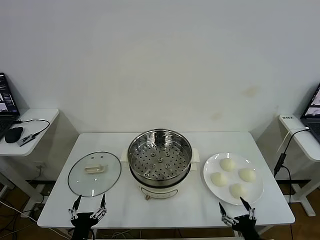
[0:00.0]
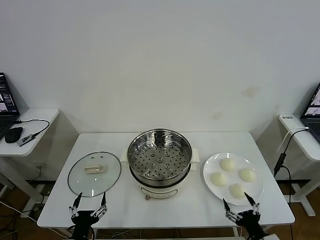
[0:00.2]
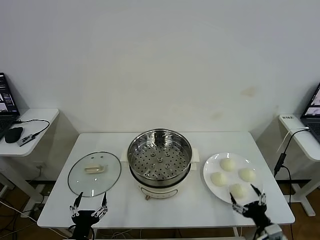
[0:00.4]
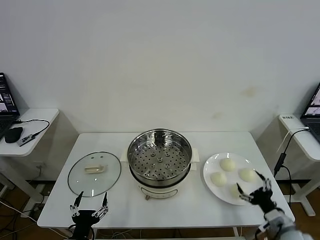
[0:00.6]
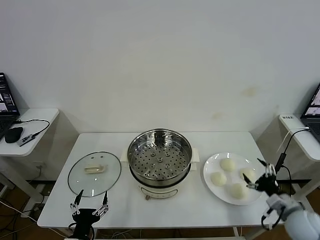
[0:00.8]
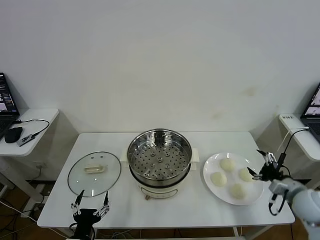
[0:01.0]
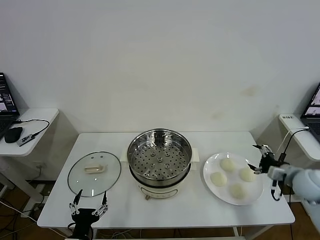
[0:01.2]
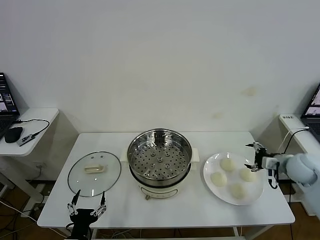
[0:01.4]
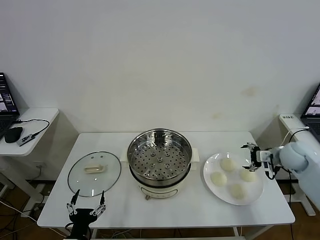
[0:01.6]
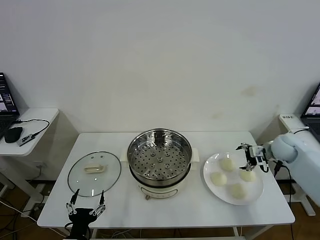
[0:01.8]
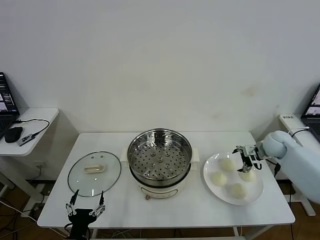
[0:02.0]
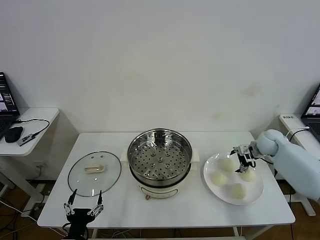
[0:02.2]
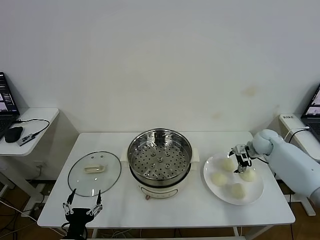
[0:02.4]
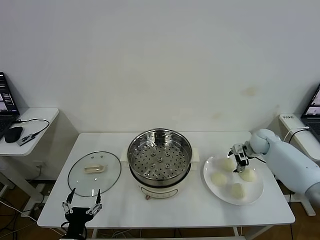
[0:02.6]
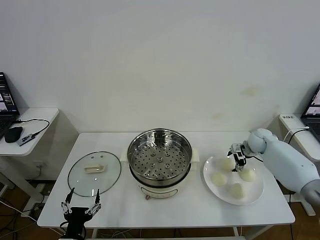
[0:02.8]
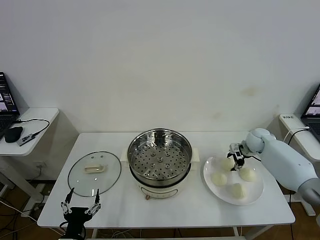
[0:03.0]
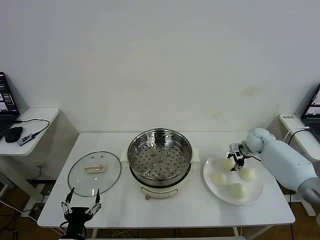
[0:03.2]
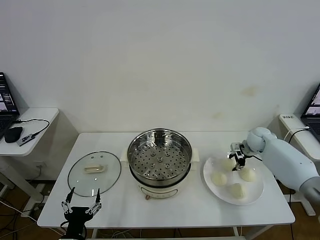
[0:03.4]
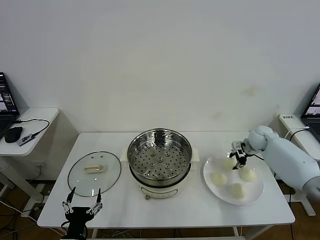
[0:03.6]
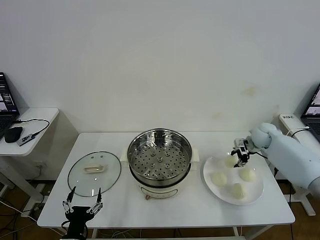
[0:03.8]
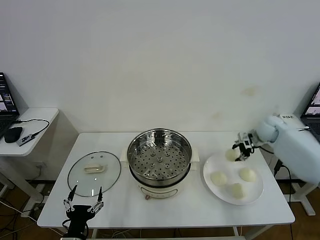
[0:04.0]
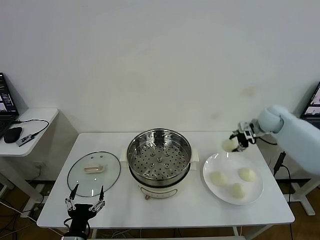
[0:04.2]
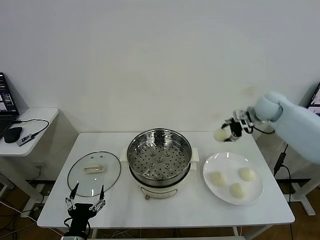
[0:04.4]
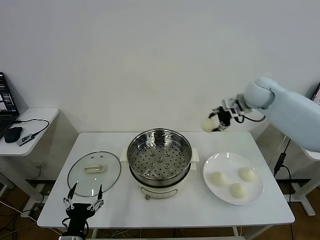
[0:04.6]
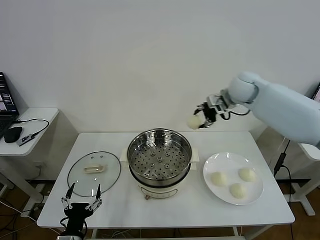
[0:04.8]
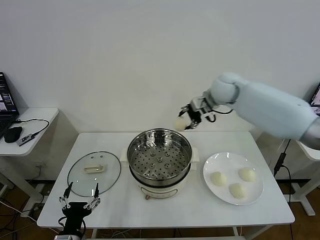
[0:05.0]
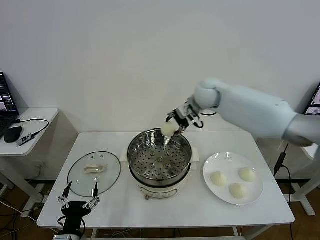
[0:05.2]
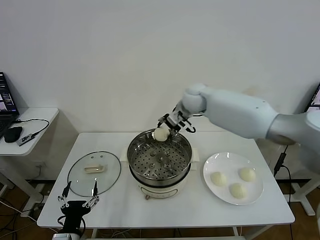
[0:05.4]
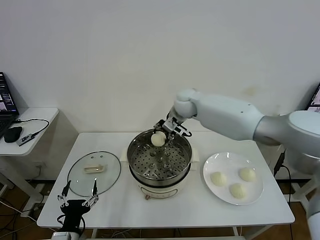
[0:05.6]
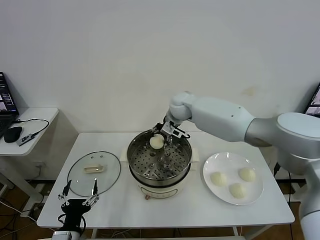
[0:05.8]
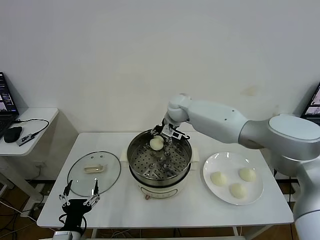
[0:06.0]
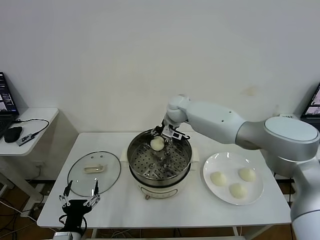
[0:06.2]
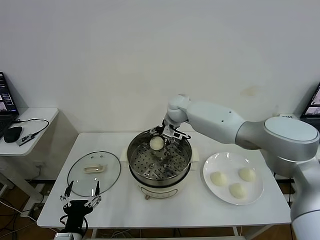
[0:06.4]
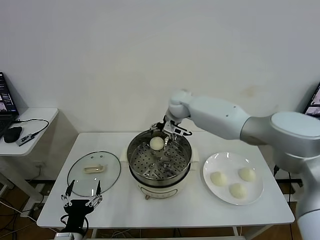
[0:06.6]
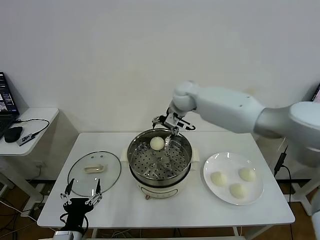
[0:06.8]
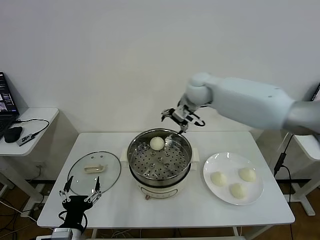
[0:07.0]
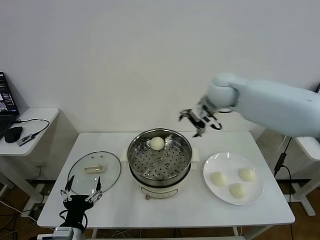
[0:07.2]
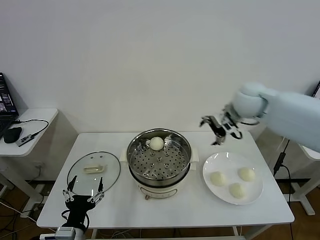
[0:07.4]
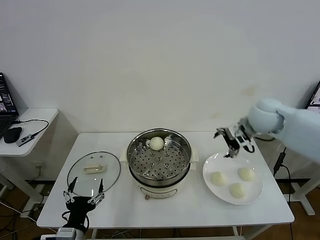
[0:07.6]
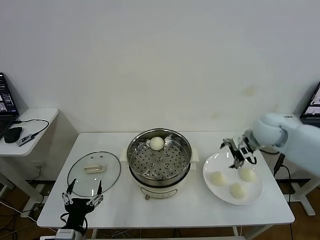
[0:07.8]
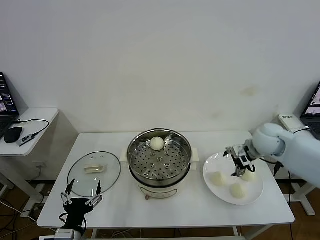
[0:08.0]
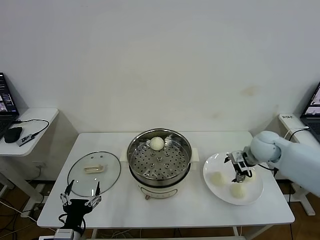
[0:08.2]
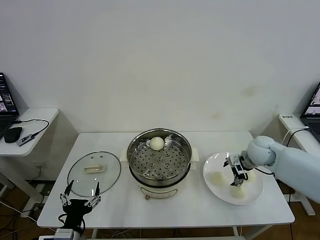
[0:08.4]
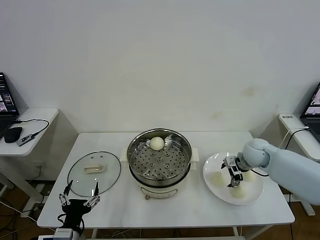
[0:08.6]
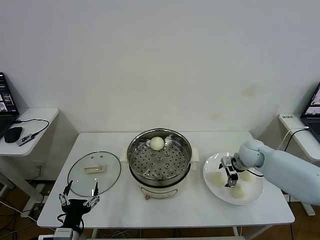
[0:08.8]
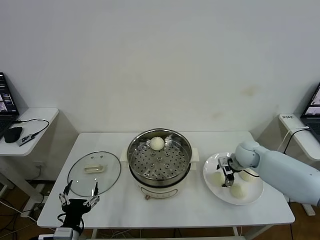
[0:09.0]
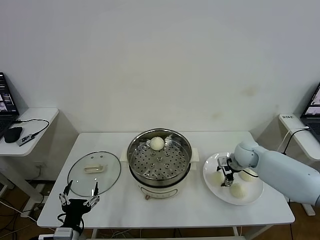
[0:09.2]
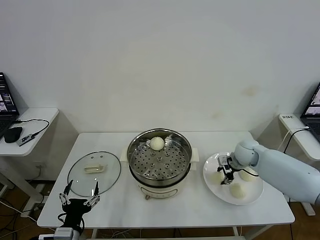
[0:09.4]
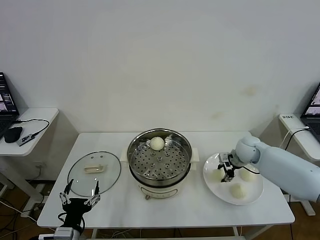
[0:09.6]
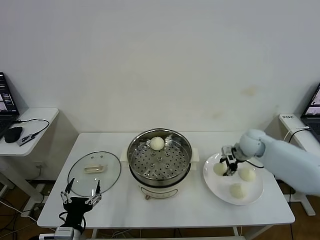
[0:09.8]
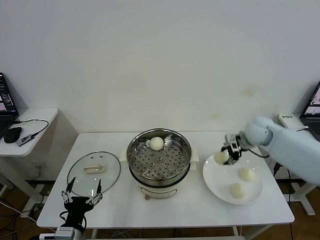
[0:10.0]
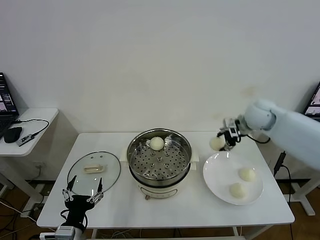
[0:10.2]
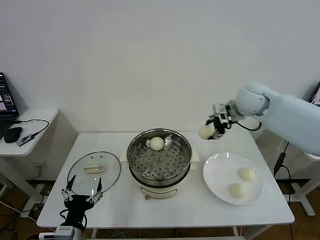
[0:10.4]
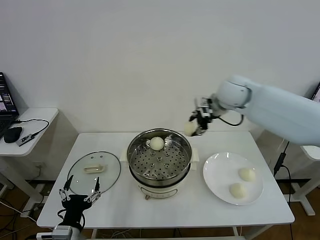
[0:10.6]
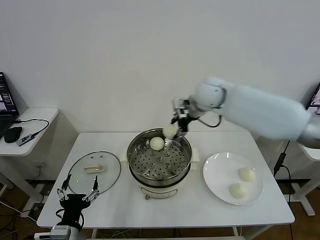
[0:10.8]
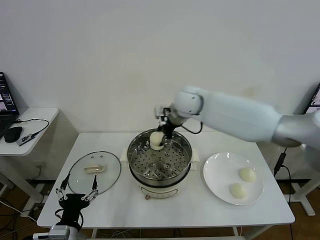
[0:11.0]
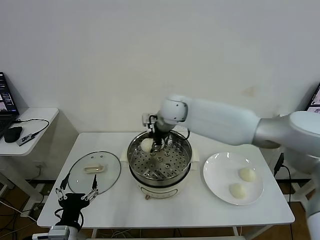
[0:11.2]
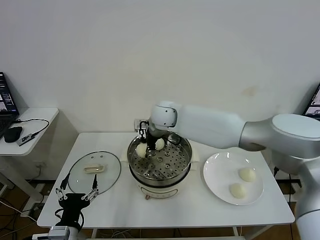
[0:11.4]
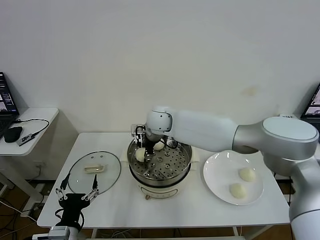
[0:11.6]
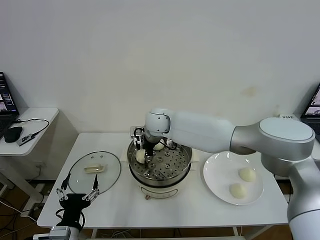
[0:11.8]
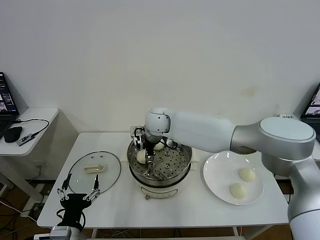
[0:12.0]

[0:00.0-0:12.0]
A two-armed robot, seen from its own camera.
Task of the whole recording: take steamed baozi put them in steamer then cover it.
Step, 0:00.0 to 0:03.0: Grasp the baozi in the plate with right gripper.
Step, 0:03.2 to 0:06.4: Place the baozi on the steamer with right gripper.
Step, 0:06.6 to 0:09.4: Grasp the baozi in the plate with right gripper.
0:01.6 to 0:03.0: The right gripper shifts approximately 15 cm forward, to the left and downward, and closes.
0:03.0 to 0:04.4: The right gripper moves upward, approximately 20 cm.
0:04.4 to 0:06.0: The right gripper moves to the left, some 30 cm.
0:06.0 to 0:07.6: The right gripper travels to the right and backward by about 25 cm, and opens.
0:07.6 to 0:09.0: The right gripper is displaced downward by some 20 cm.
0:09.0 to 0:10.4: The right gripper is displaced upward by about 20 cm, and closes its fingers.
0:10.4 to 0:12.0: The right gripper moves to the left, roughly 30 cm.

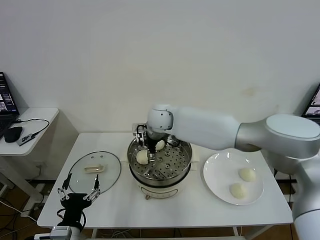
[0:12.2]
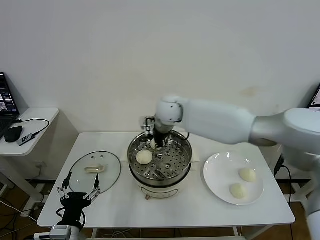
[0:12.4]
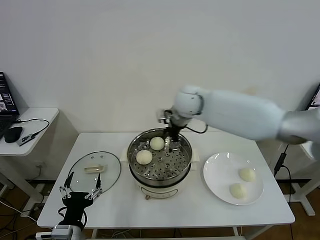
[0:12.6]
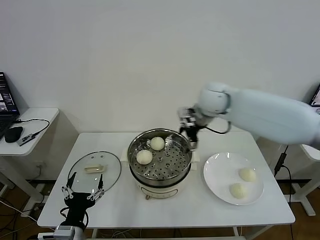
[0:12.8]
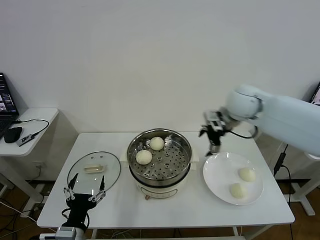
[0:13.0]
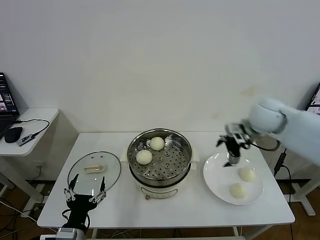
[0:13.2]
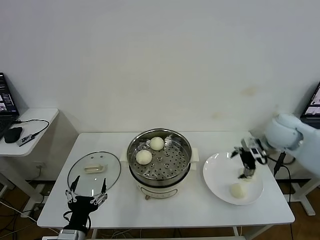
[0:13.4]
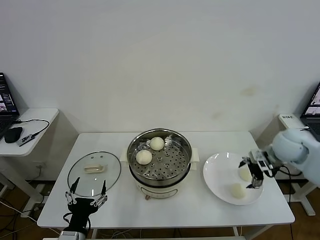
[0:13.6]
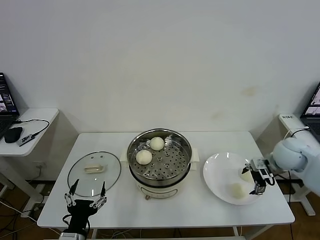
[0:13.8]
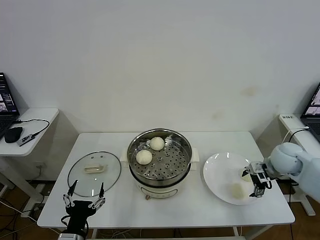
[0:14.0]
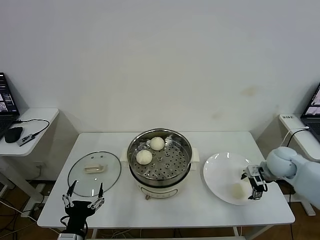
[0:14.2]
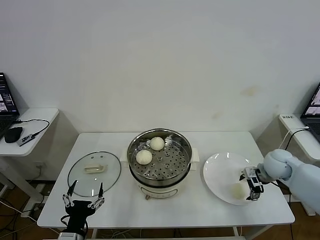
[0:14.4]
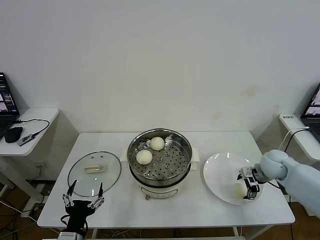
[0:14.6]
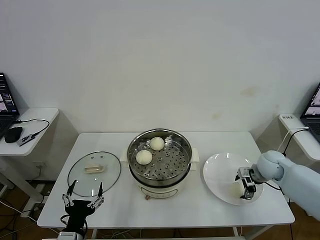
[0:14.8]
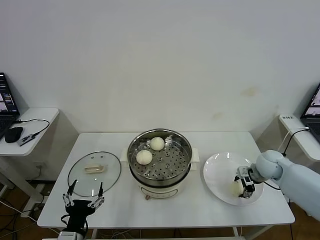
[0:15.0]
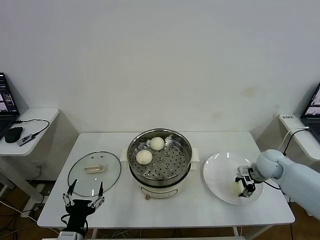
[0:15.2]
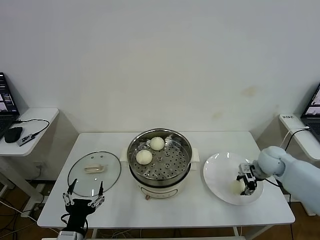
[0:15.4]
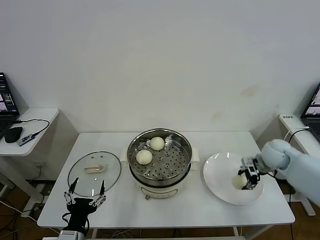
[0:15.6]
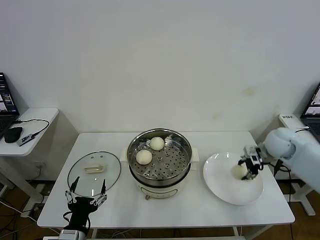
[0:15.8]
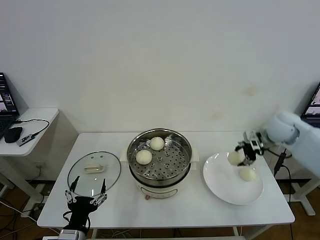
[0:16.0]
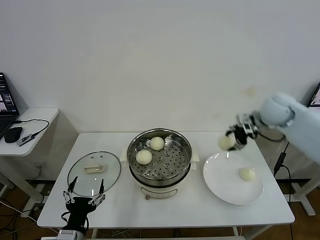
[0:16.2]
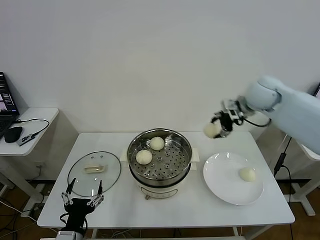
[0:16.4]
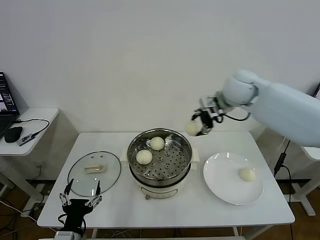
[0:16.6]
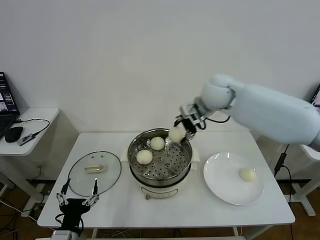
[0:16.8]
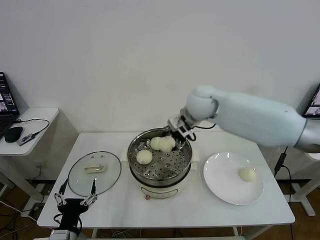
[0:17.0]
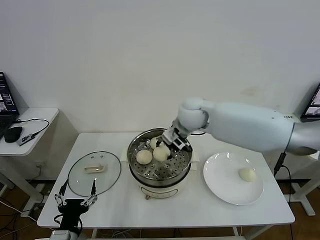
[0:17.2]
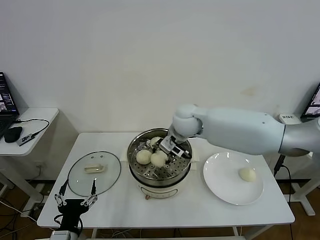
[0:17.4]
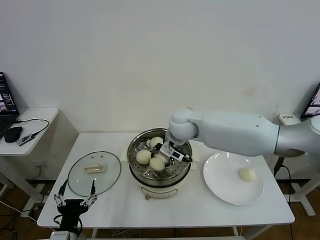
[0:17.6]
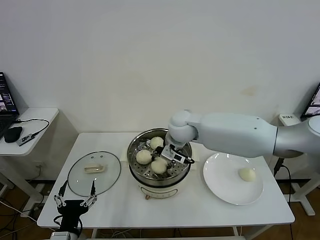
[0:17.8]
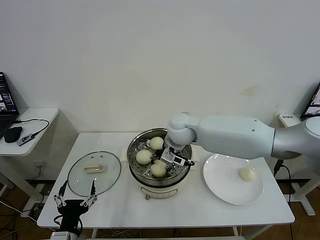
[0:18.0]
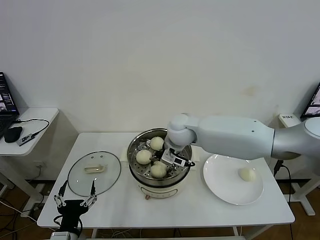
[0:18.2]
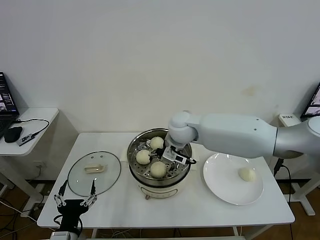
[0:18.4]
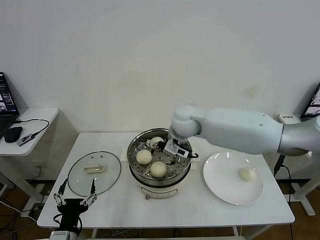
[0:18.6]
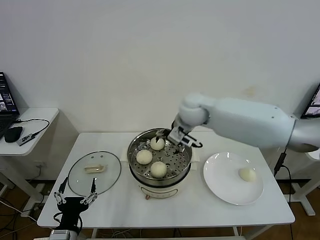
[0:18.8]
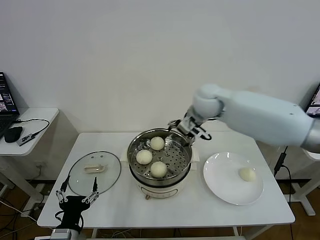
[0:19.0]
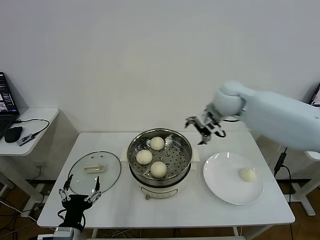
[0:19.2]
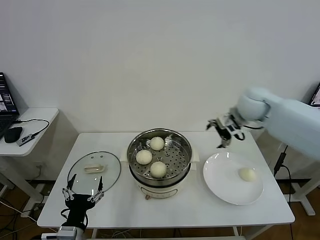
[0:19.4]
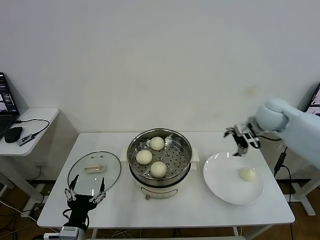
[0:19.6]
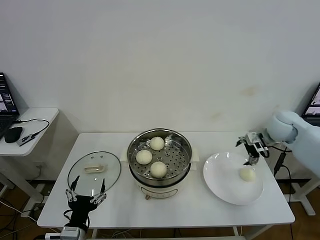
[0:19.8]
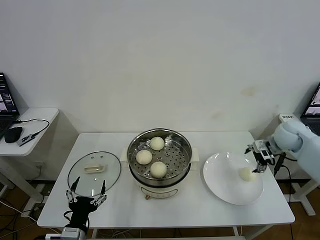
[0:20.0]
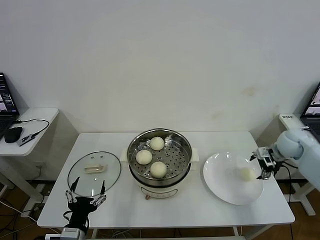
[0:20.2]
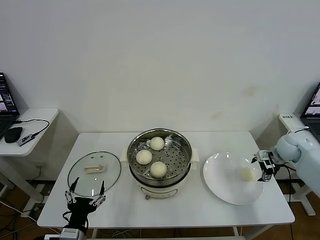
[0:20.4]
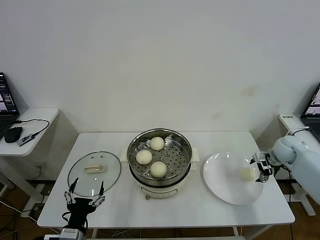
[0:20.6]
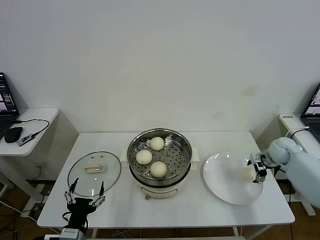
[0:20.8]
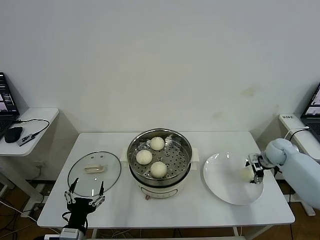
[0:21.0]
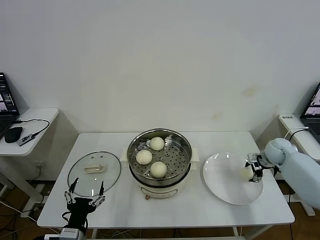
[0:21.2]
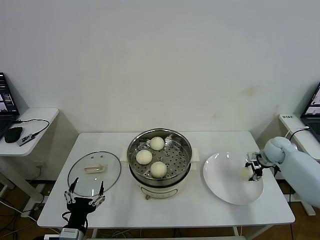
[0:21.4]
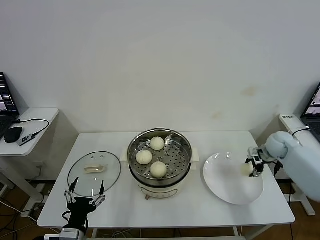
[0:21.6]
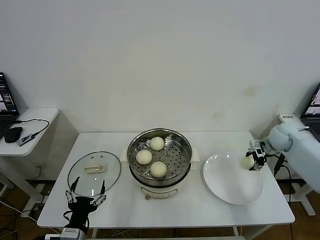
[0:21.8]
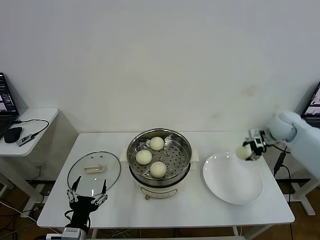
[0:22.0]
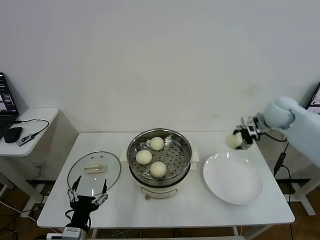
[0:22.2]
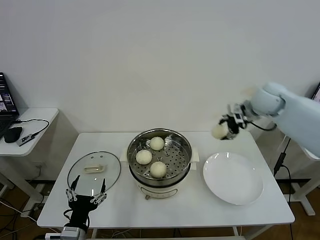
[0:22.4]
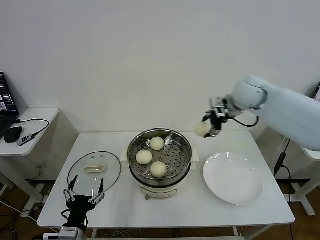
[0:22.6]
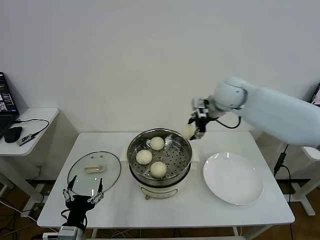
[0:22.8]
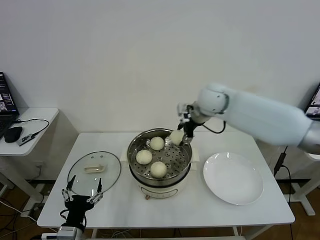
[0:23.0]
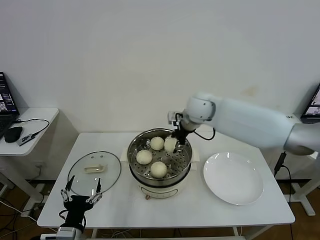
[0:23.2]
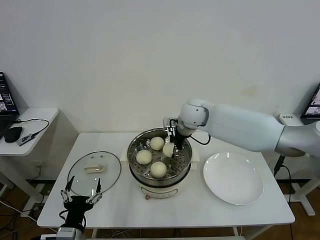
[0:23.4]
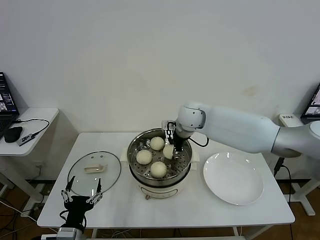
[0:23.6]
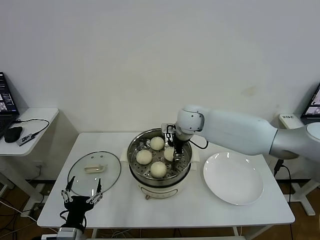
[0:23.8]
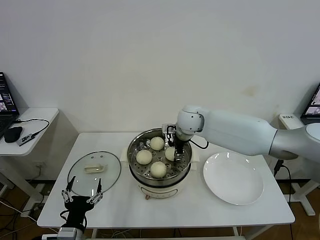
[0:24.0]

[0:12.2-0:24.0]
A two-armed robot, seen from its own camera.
Task of the whole recording: take steamed baozi put them in steamer then cover it.
Step, 0:12.4 to 0:15.2: Grasp the baozi in the plate with right gripper.
Step, 0:15.4 to 0:18.4: Place the baozi on the steamer with right gripper.
Step, 0:18.6 to 0:21.4: Grasp the baozi in the plate with right gripper.
0:12.2 to 0:13.6: The right gripper shifts roughly 40 cm to the right.
0:13.6 to 0:15.2: The right gripper is displaced downward by approximately 10 cm, and closes up.
0:15.2 to 0:16.6: The right gripper moves upward and to the left, about 30 cm.
0:16.6 to 0:18.2: The right gripper travels to the left and downward by some 20 cm.
0:18.2 to 0:19.6: The right gripper heads to the right, covering some 25 cm, and opens its fingers.
0:19.6 to 0:21.0: The right gripper heads downward and to the right, covering some 20 cm.
0:21.0 to 0:22.6: The right gripper goes approximately 30 cm upward and to the left, and closes.
0:22.6 to 0:24.0: The right gripper travels to the left and downward by roughly 20 cm.
